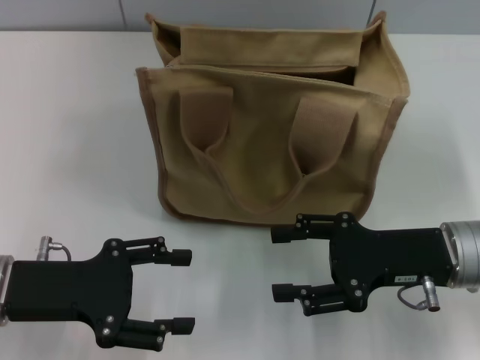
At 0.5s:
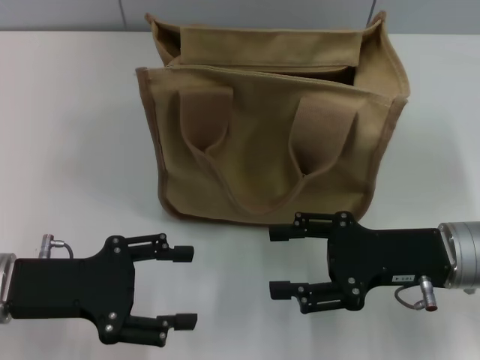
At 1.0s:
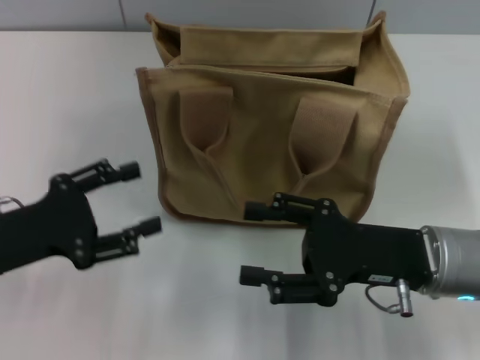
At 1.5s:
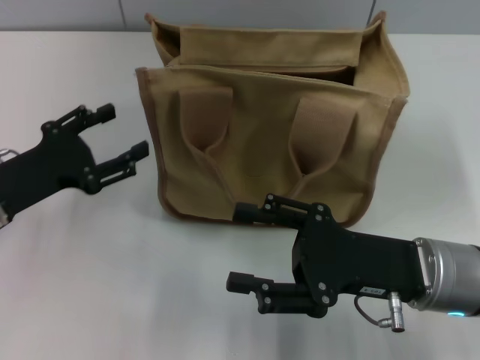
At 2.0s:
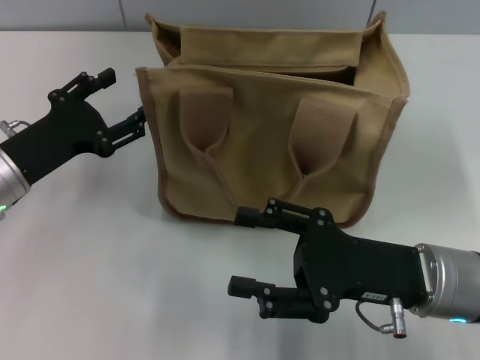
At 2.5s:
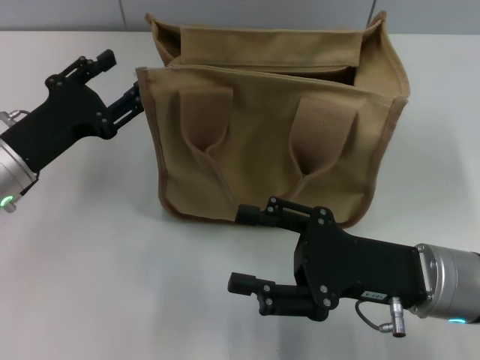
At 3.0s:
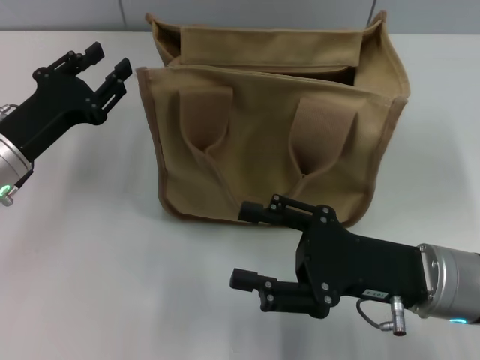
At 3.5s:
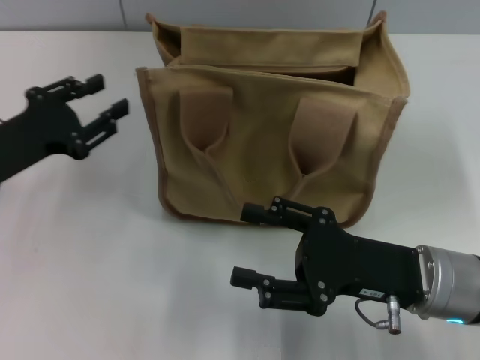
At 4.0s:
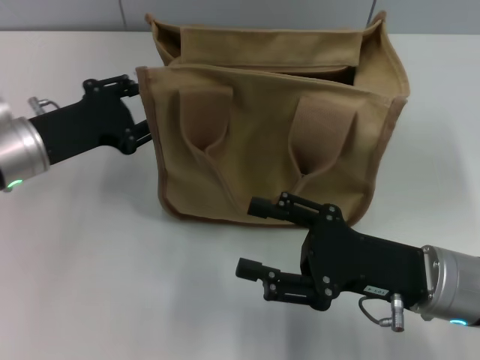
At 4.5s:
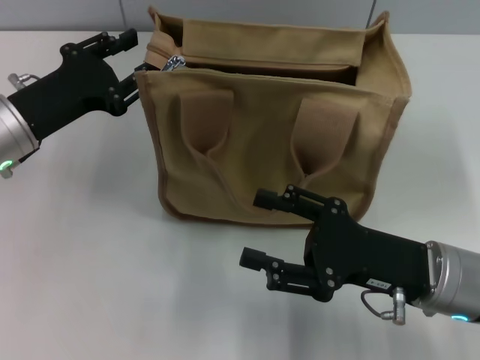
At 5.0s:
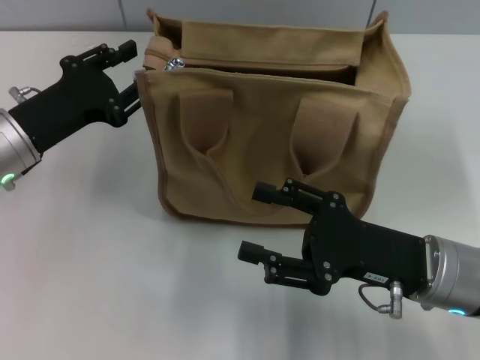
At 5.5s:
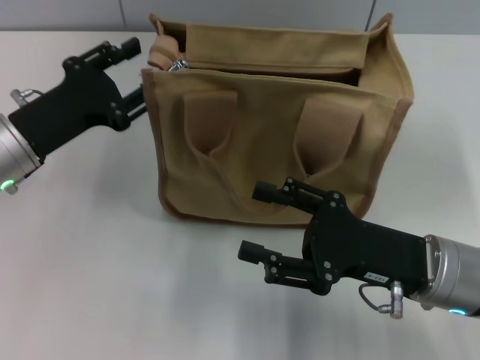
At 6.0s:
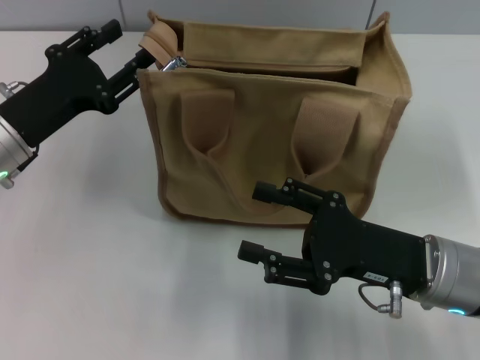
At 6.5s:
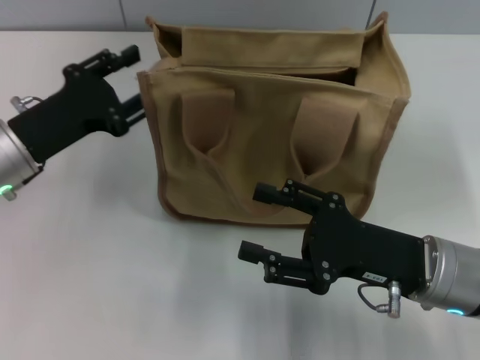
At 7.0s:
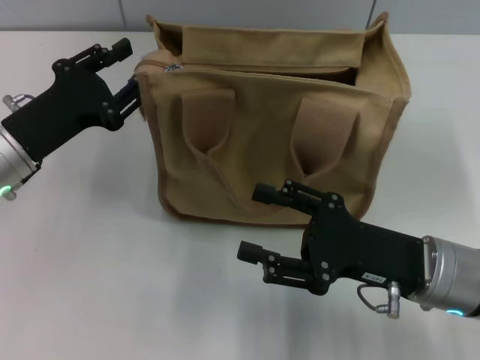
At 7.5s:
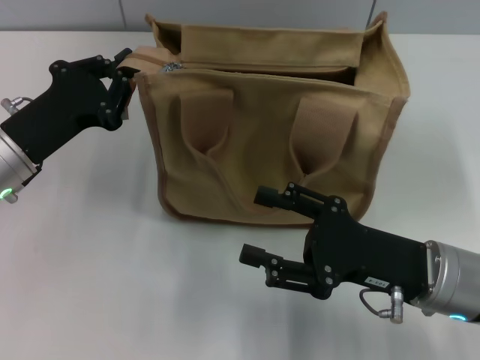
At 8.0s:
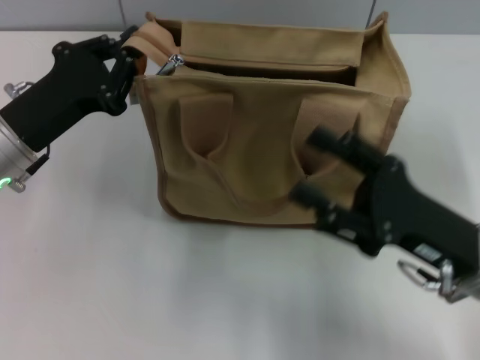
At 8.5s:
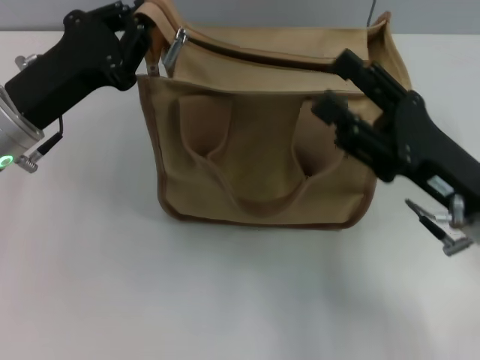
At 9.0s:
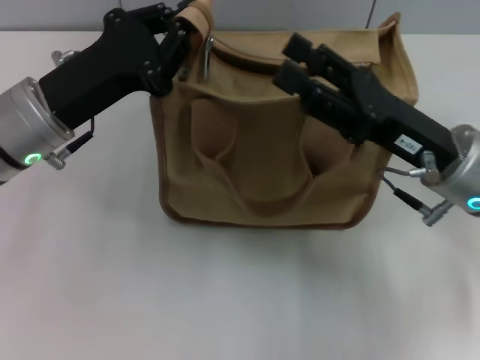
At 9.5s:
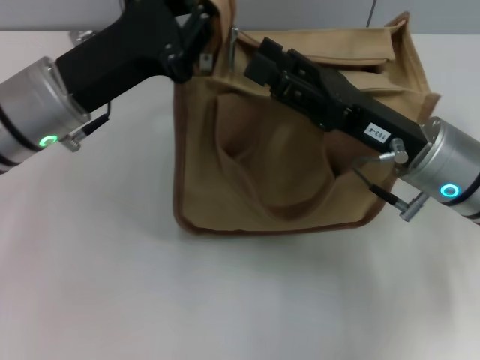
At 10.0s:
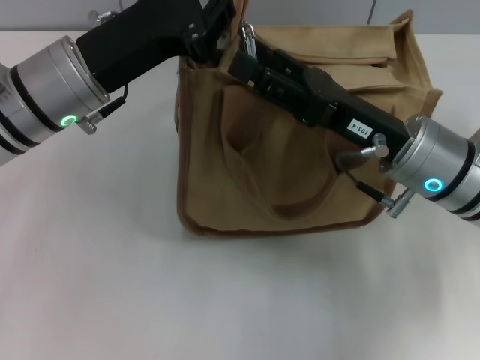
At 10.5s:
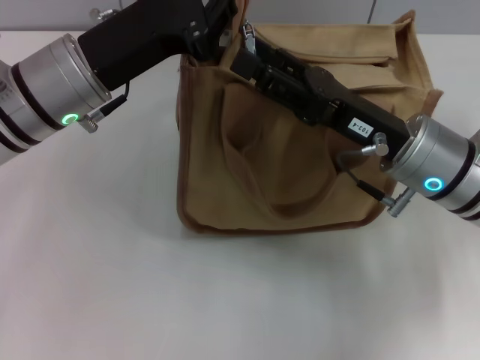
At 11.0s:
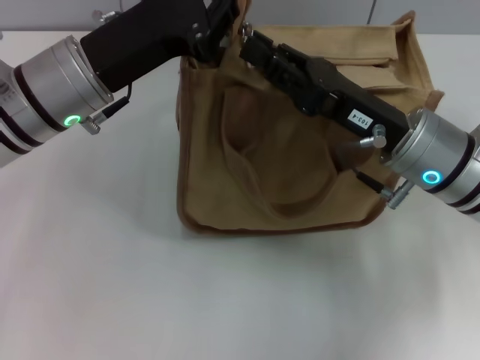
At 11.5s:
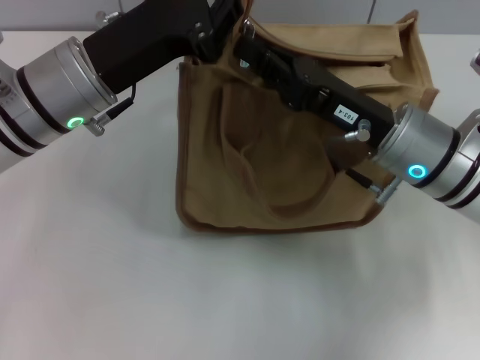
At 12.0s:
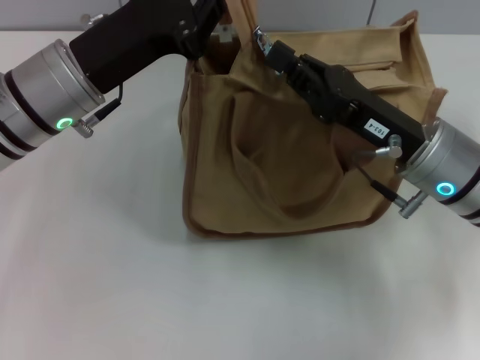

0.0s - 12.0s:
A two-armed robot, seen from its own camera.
0.0s - 2.0s: The right gripper ends up approximately 5 cm from where it was, while the left gripper is displaced forward by some 10 cm.
2.0s - 4.0s: The left gripper closes up.
6.0s - 8.0s: The left gripper closes up.
8.0s - 10.0s: The right gripper is displaced forward by roughly 10 cm, while the left gripper heads to the right and upward, covering roughly 10 cm.
10.0s - 12.0s: The right gripper closes.

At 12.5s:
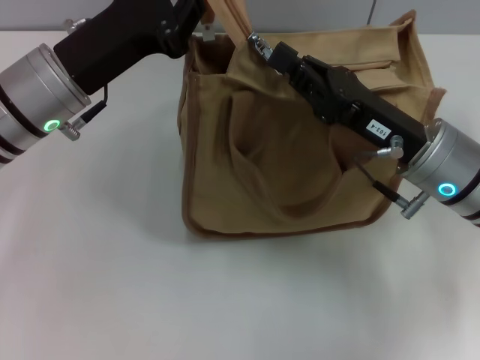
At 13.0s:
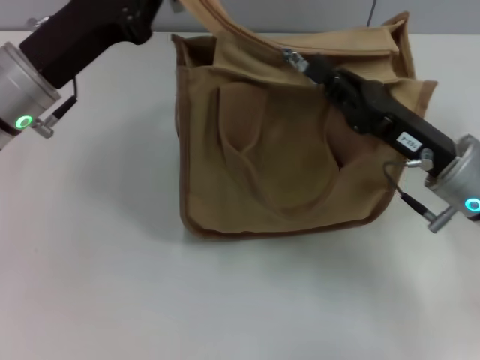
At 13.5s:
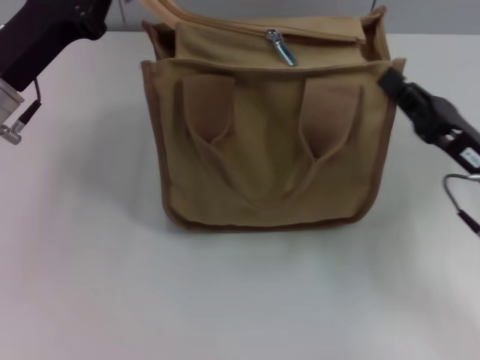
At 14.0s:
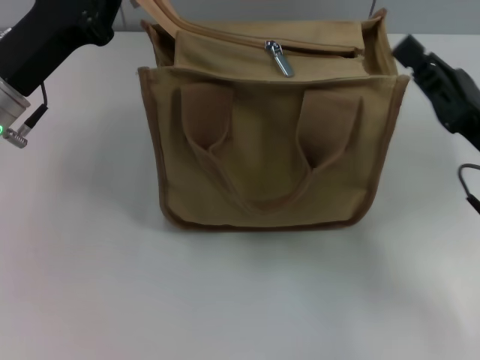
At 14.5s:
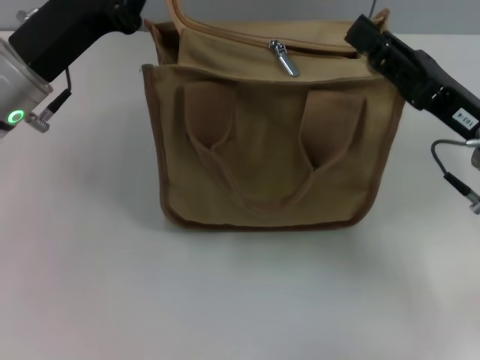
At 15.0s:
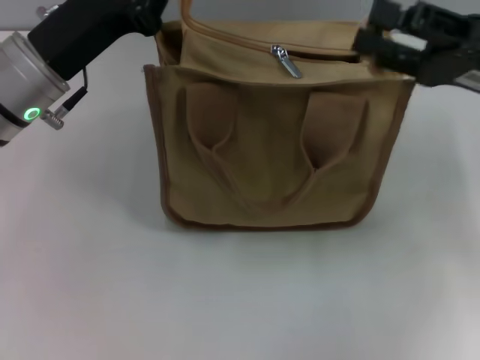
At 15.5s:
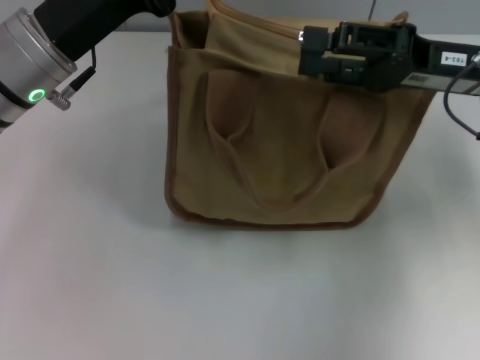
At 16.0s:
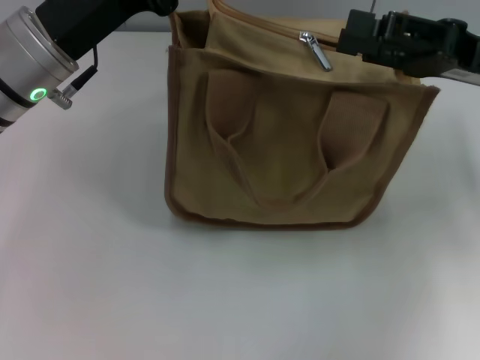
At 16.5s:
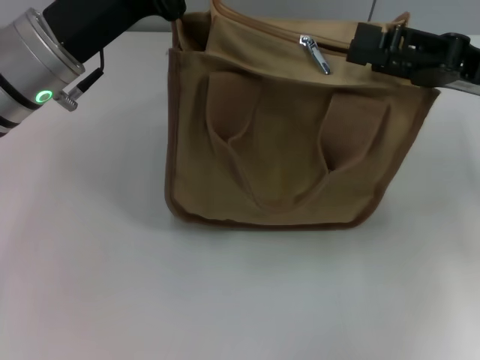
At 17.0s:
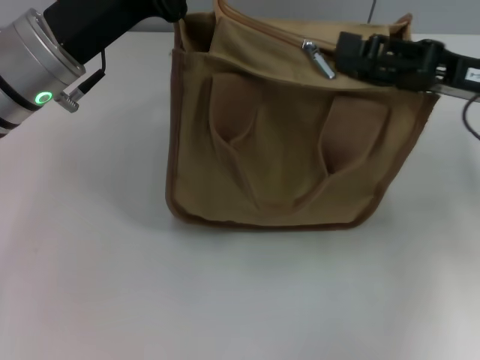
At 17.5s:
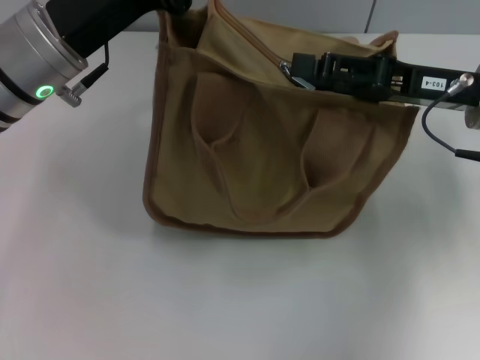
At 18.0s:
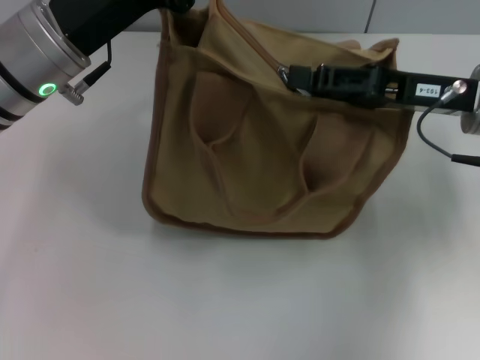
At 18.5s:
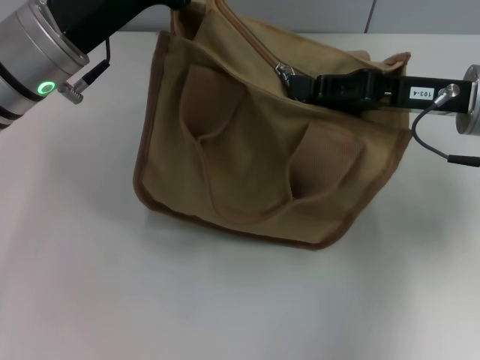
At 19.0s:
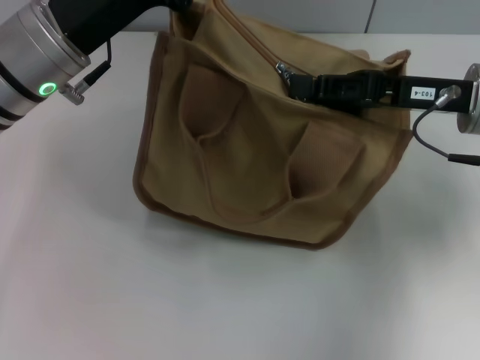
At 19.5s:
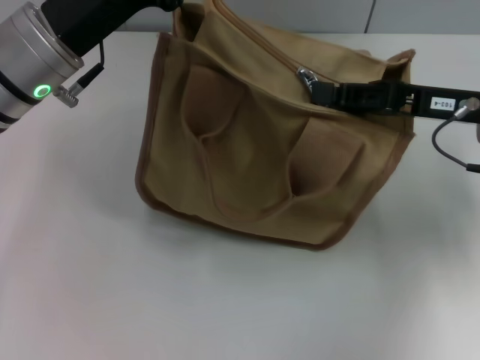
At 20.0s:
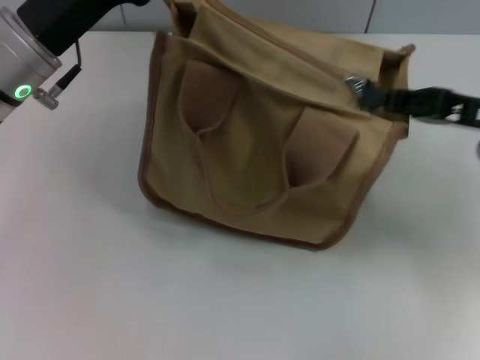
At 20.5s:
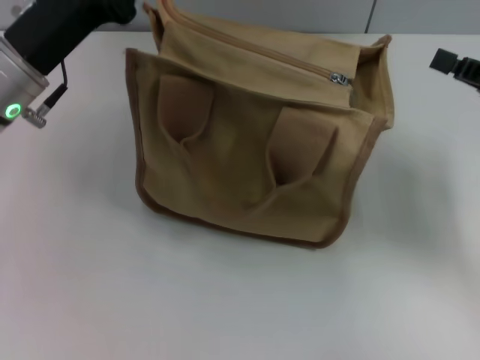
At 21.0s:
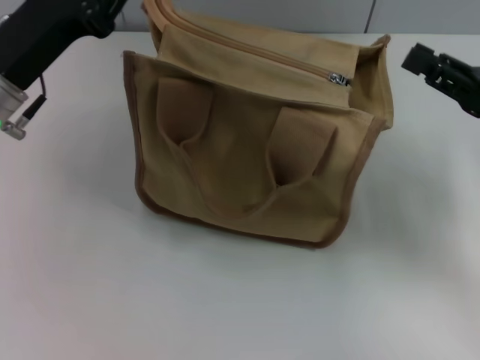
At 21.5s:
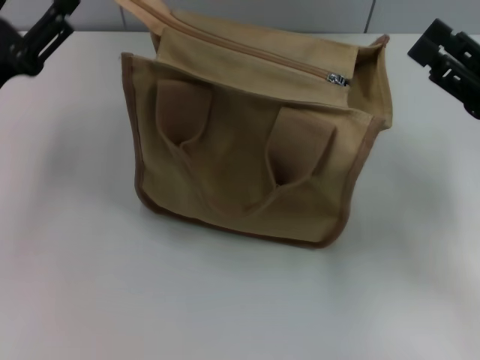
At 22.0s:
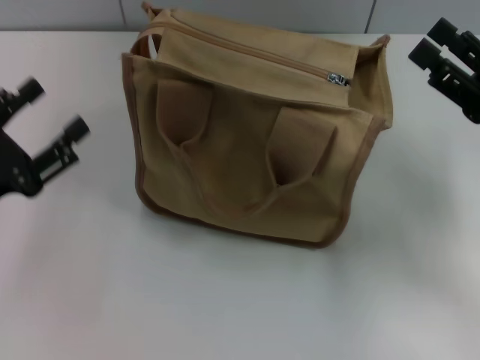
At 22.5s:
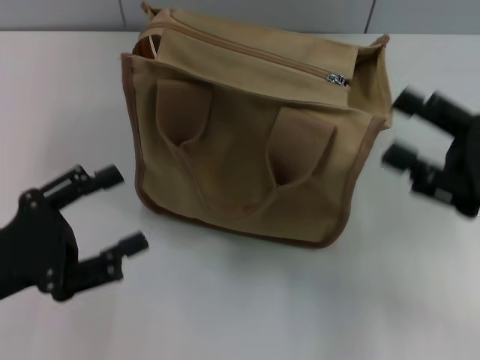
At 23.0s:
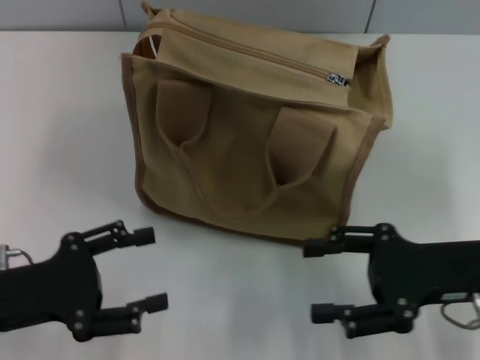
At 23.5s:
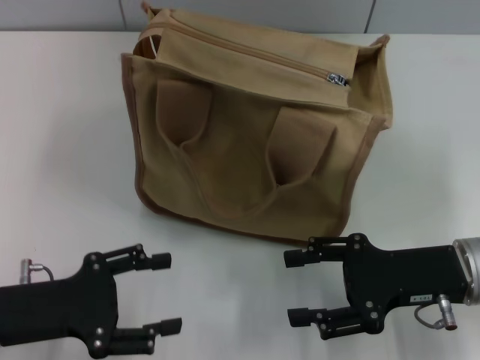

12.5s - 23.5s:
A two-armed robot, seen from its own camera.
Step, 12.5s - 20.0s: Pull up the zipper with your right hand.
Step, 20.5s - 21.5s: Grab the zipper with your left hand.
12.5s - 14.5s: The right gripper moves to the right, about 5 cm.
14.5s - 16.0s: The right gripper moves upward, approximately 5 cm, and opens its fingers.
18.0s - 20.0s: The right gripper heads to the right, covering some 5 cm, and closes up.
20.0s - 21.5s: The left gripper is displaced to the left and backward by about 10 cm, and opens, while the right gripper opens.
21.5s - 23.5s: The left gripper goes approximately 10 cm backward and downward; the right gripper travels to the left by roughly 5 cm.

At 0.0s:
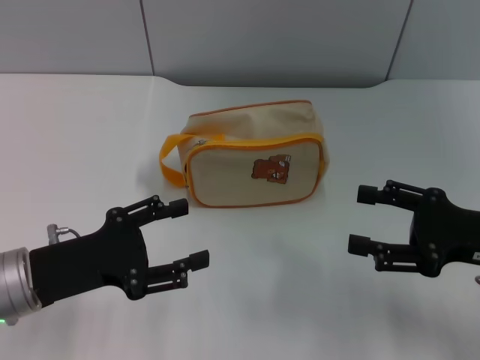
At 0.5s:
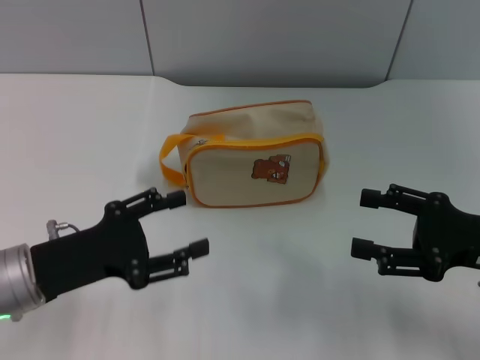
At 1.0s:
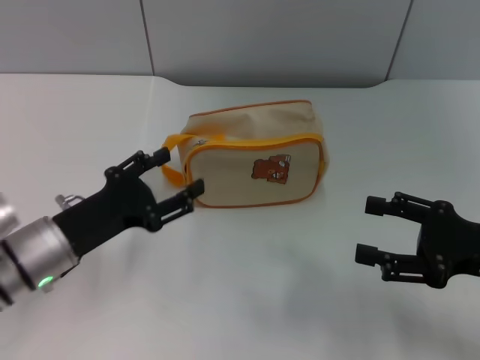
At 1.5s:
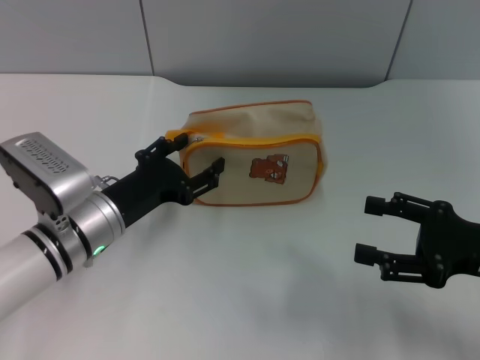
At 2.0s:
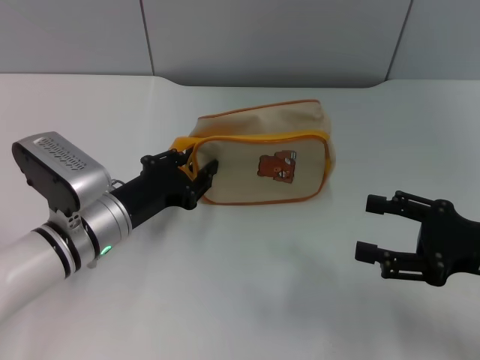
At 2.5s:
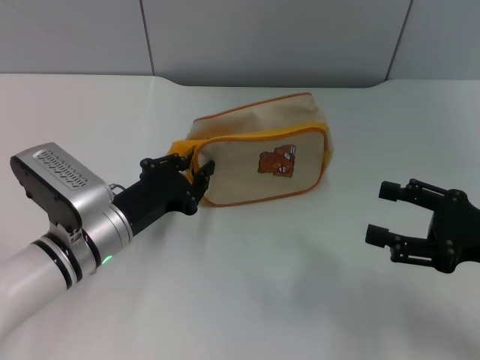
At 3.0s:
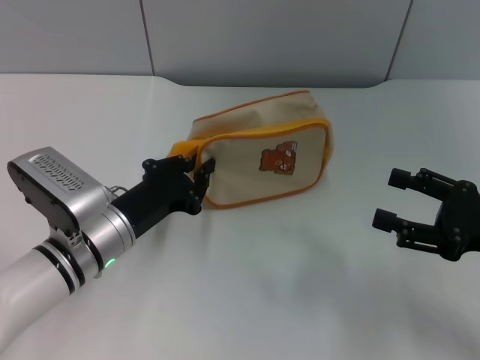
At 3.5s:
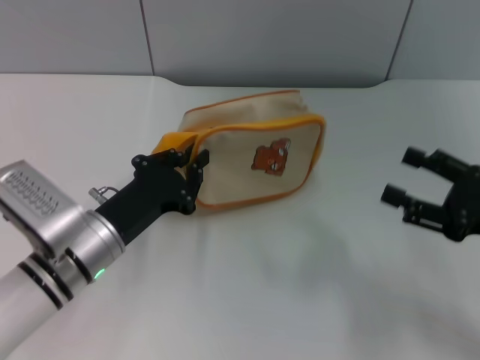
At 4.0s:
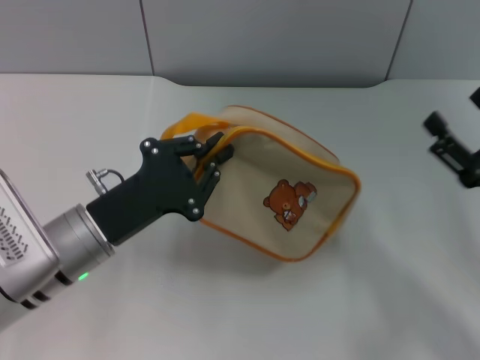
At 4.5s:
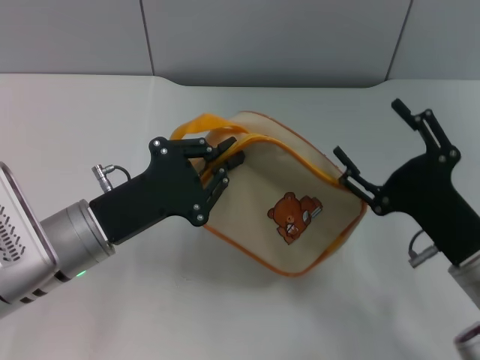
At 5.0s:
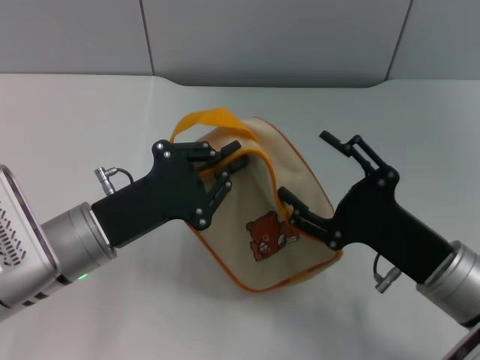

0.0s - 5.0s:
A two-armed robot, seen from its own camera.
Step, 0.0s - 3.5s: Pick up the bag with left gripper.
0.0s - 2.5s: The left gripper shifts about 10 cm to the right and forward, and closes.
2.5s - 5.0s: The right gripper moves to the left, some 10 cm, while the left gripper changes place by about 5 cm.
